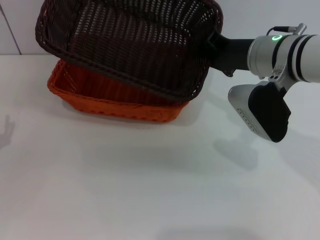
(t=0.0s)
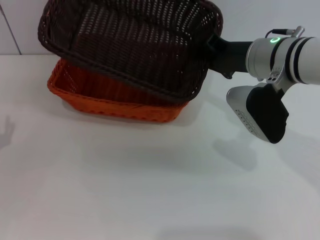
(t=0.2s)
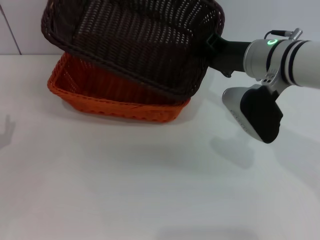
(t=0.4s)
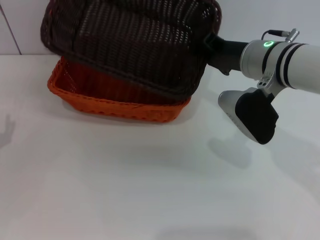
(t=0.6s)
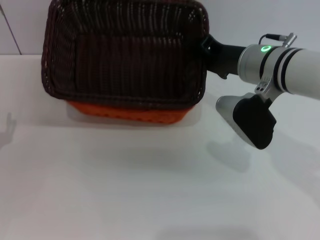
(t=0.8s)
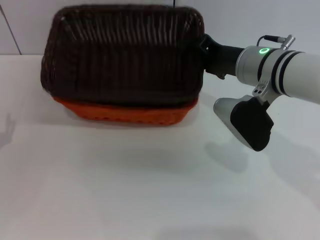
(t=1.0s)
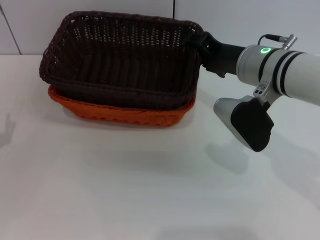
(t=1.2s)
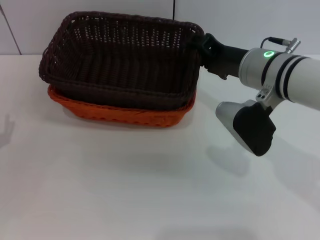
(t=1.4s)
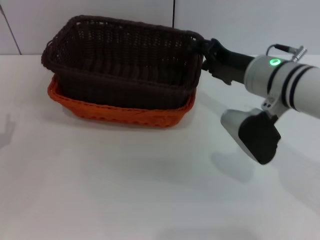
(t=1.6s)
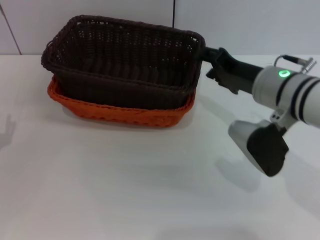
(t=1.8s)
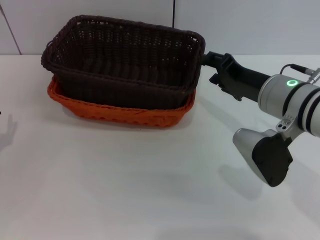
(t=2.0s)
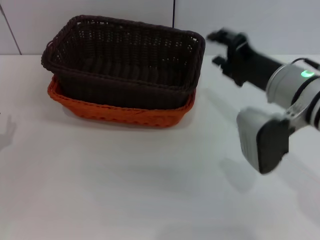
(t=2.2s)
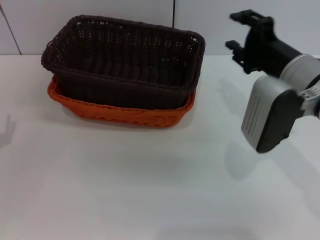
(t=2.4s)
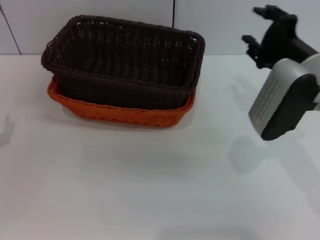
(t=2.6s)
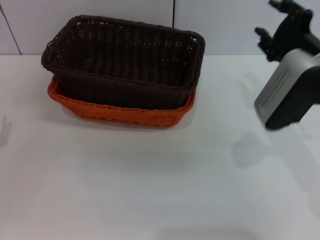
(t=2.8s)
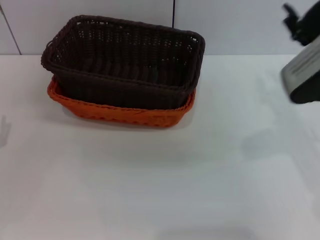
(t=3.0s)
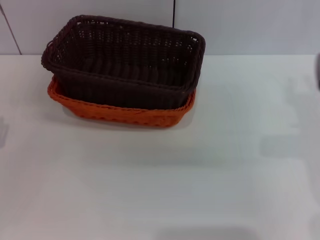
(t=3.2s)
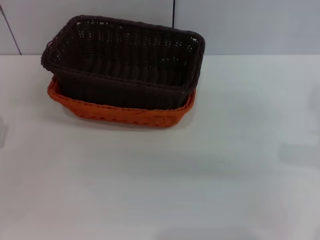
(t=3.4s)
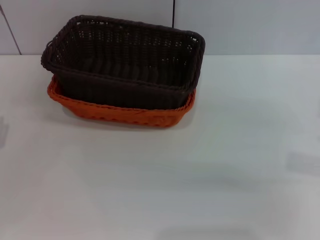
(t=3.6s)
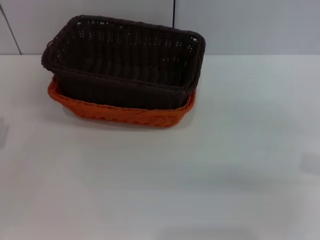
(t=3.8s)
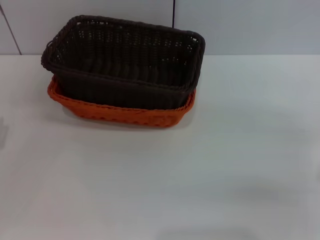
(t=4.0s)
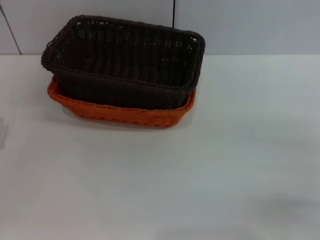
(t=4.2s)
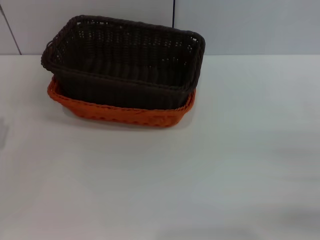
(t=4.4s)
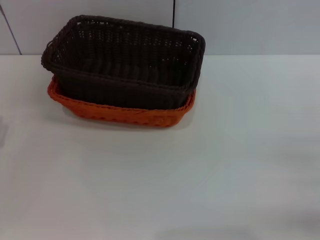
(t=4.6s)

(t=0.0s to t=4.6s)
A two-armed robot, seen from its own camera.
t=0.0s - t=1.6s: The right gripper opens.
t=1.6s - t=3.0s: The right gripper travels to the right by approximately 5 cm.
t=3.0s - t=4.6s: The right gripper is displaced downward, to the right and backward by roughly 20 cm.
